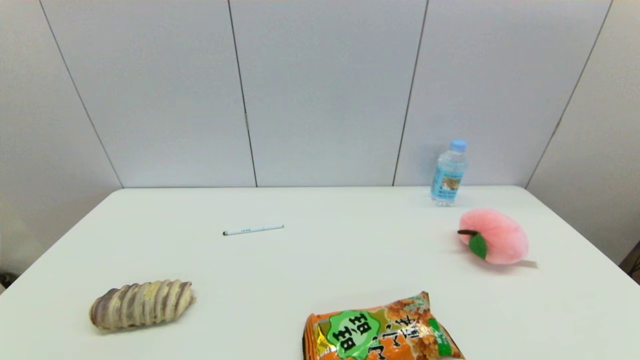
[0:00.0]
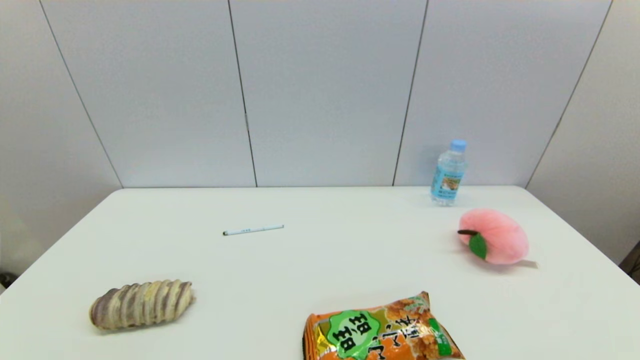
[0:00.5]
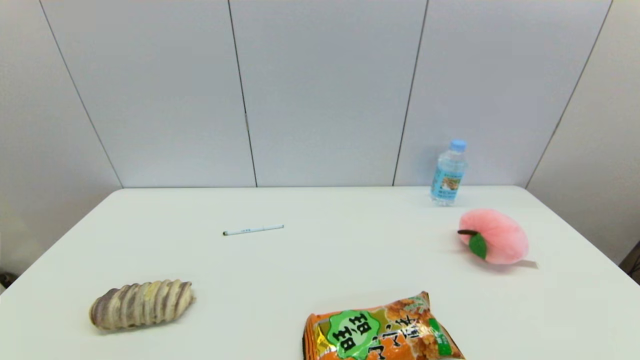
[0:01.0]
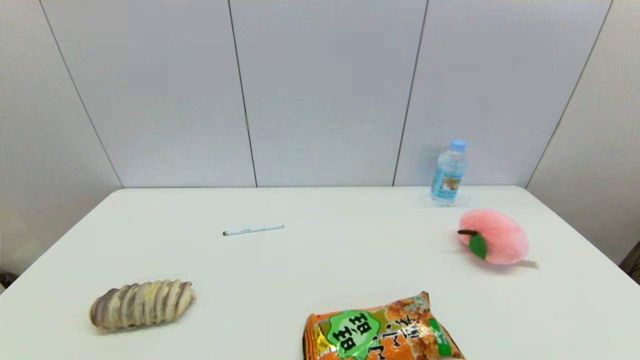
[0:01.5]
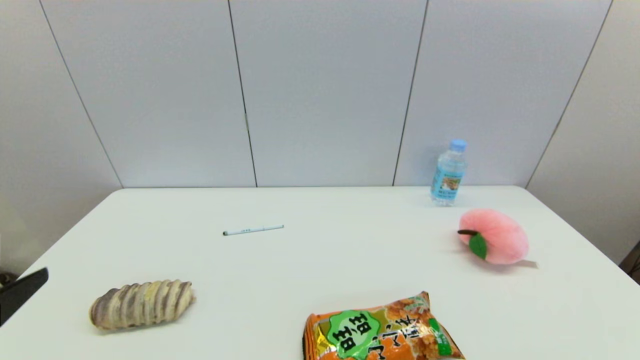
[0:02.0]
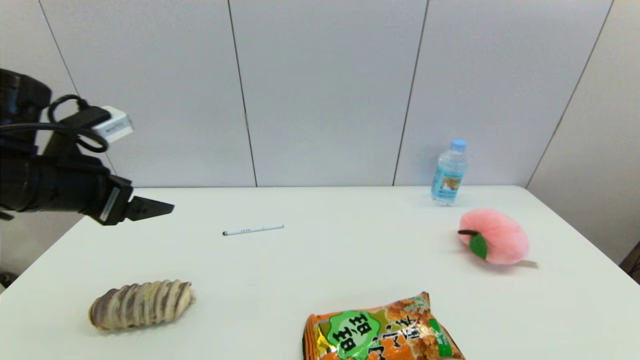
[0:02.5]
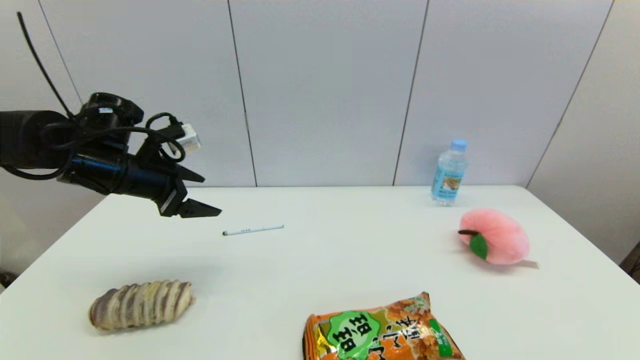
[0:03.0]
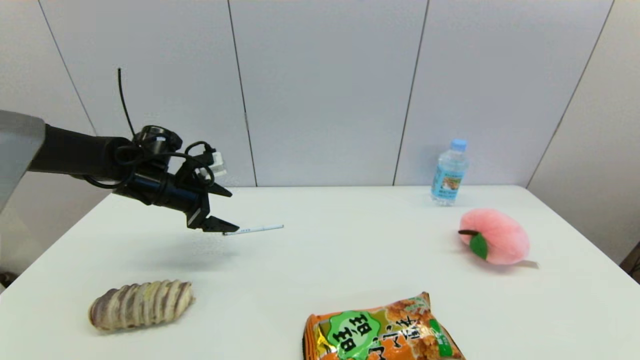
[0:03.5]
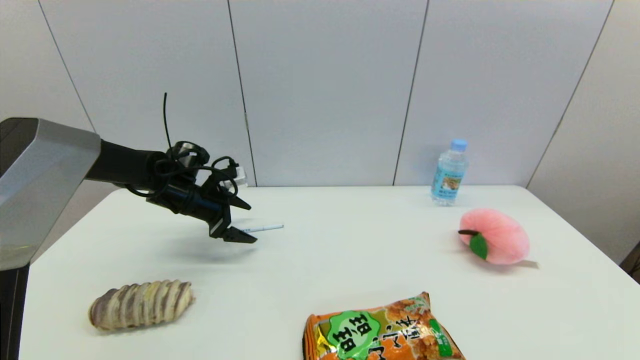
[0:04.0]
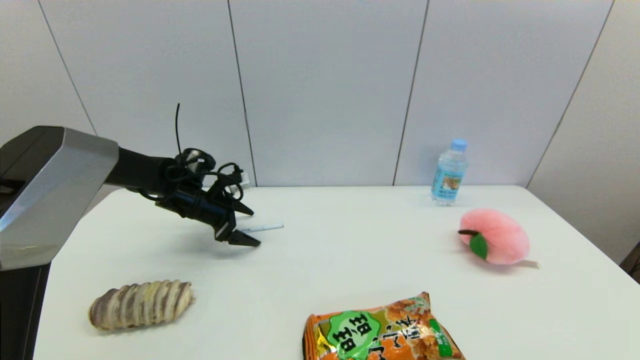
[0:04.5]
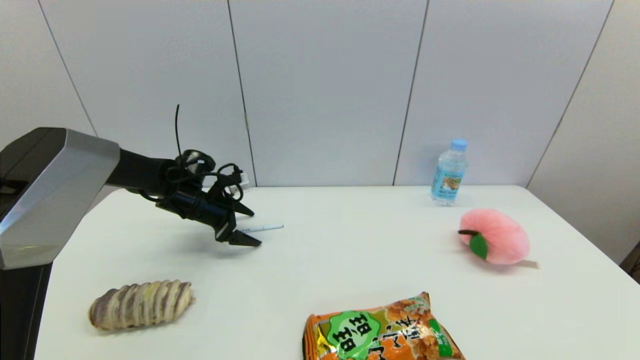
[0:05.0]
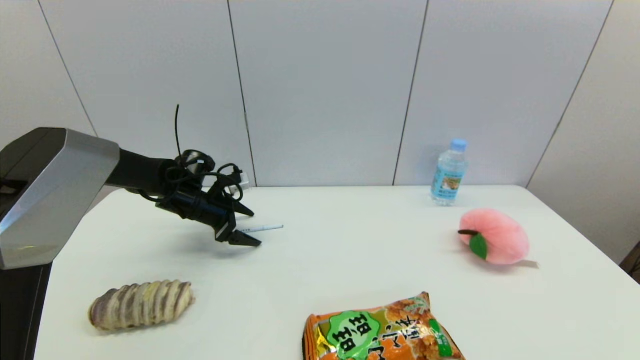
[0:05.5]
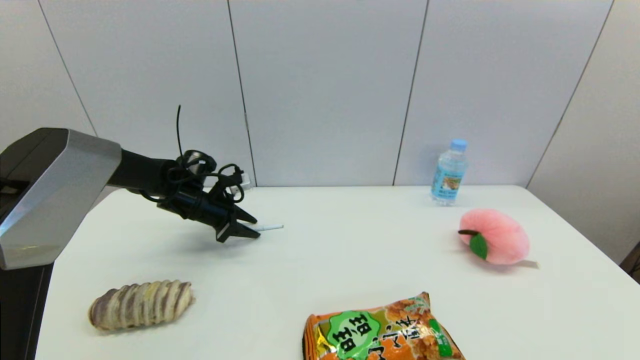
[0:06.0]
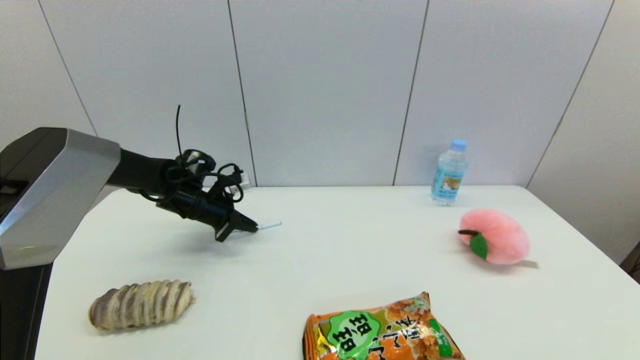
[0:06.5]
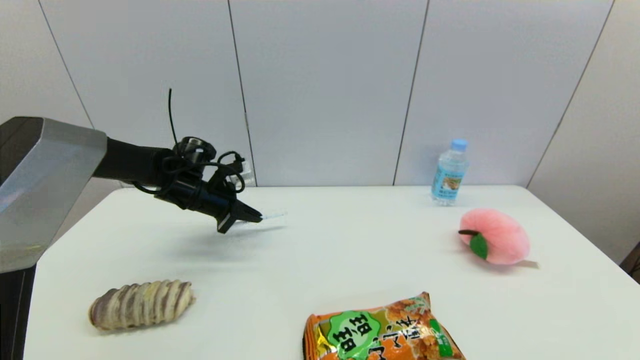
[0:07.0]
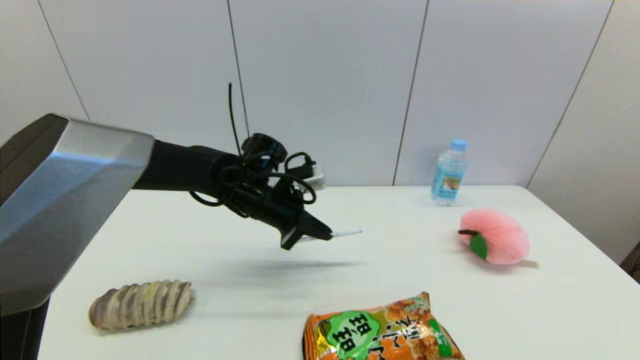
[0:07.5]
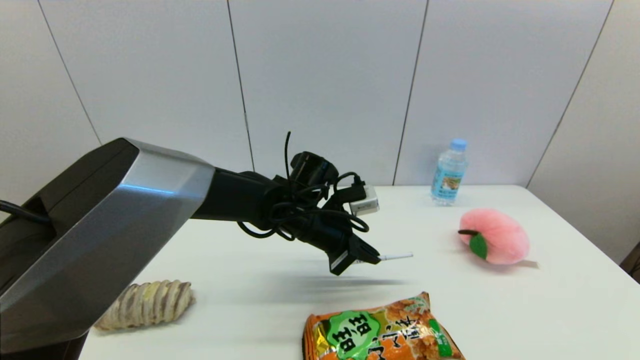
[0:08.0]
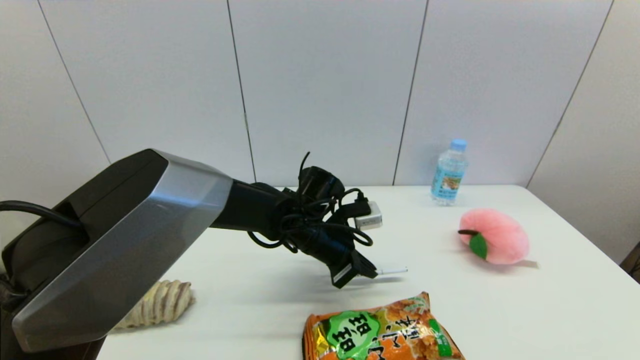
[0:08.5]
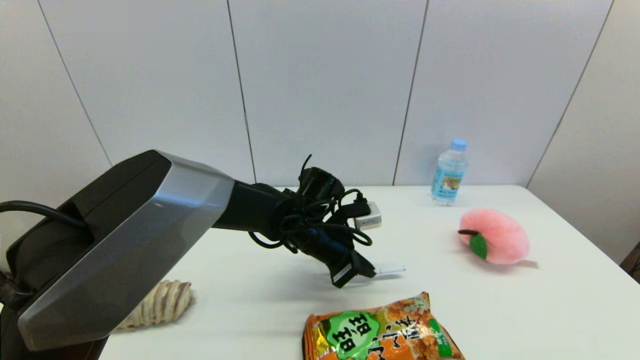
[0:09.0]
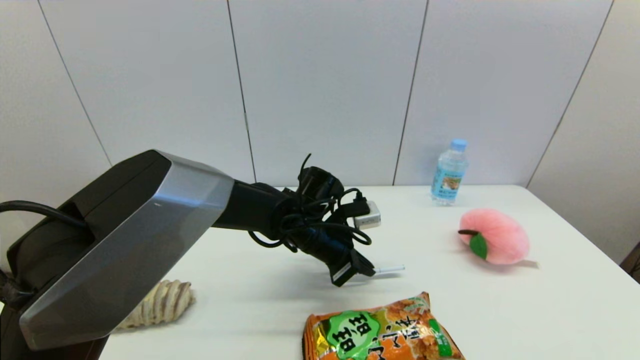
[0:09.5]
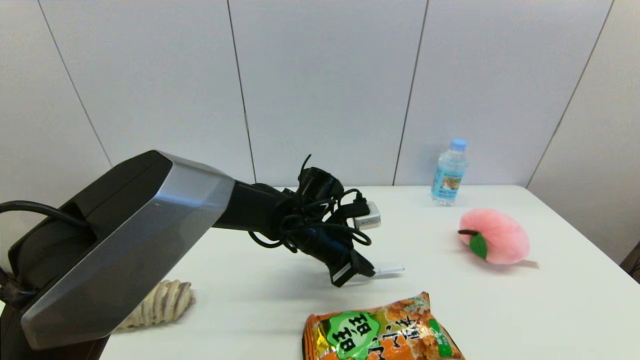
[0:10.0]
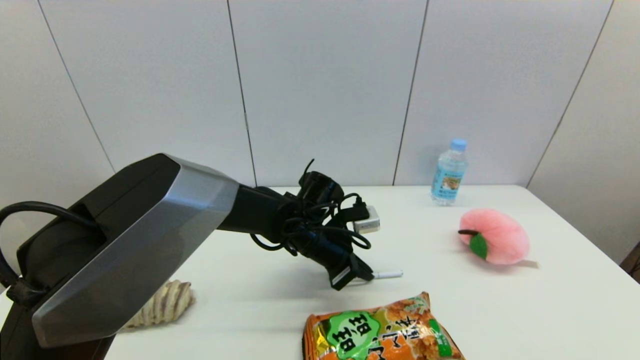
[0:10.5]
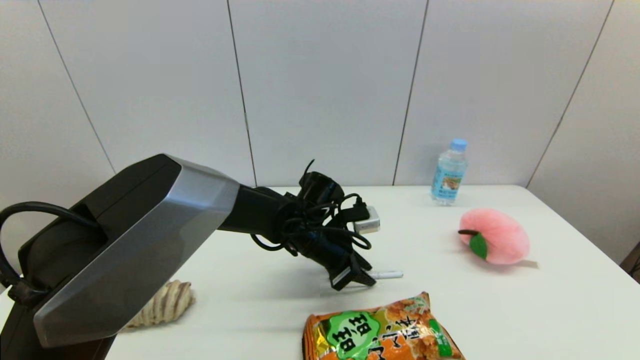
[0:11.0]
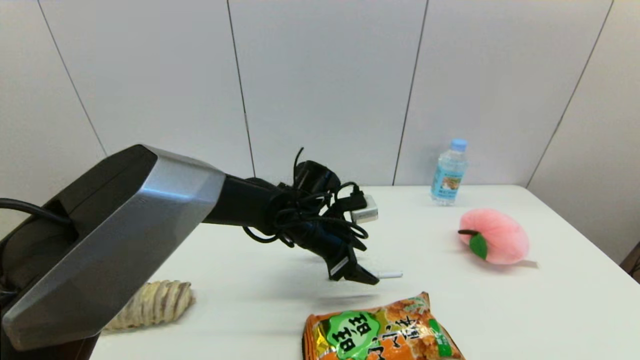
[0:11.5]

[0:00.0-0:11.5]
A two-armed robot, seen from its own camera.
Task of the whole recording: put the pen in the designated position.
Step, 0:02.0 to 0:06.0: Grasp the sign pen with left gripper.
Step, 0:06.5 to 0:11.0: Place the sign pen on the table with left gripper.
0:02.0 to 0:04.0: The left gripper travels forward by roughly 35 cm.
0:04.0 to 0:06.0: The left gripper closes up.
0:06.0 to 0:07.5: The left gripper moves to the right and backward, roughly 15 cm, and closes up.
0:07.5 to 0:09.5: The left gripper is displaced to the right by about 10 cm.
0:09.5 to 0:11.5: The left gripper opens up.

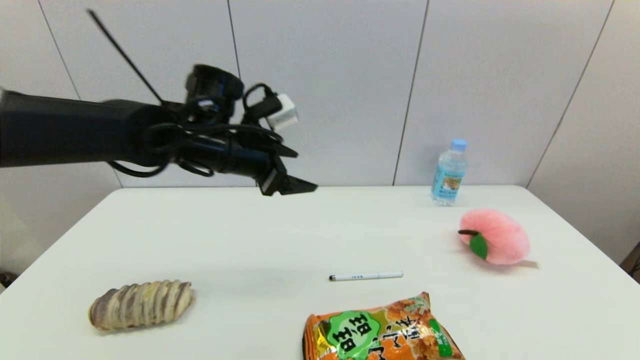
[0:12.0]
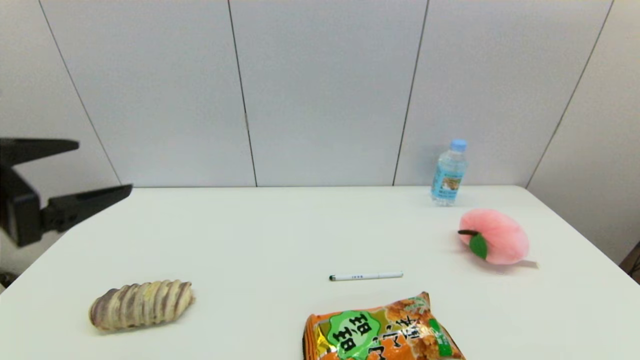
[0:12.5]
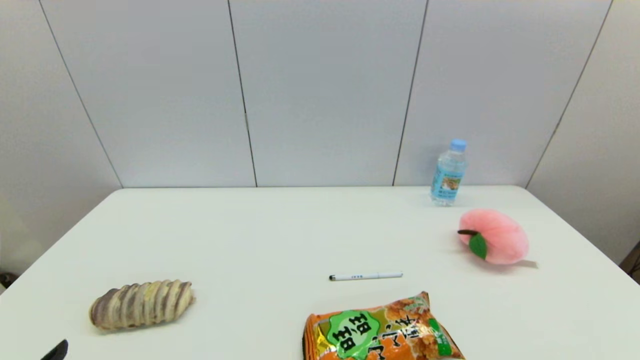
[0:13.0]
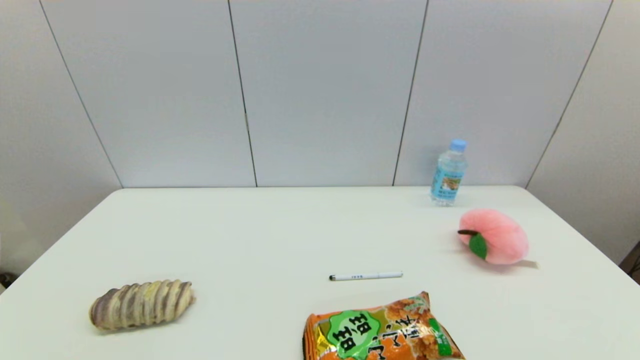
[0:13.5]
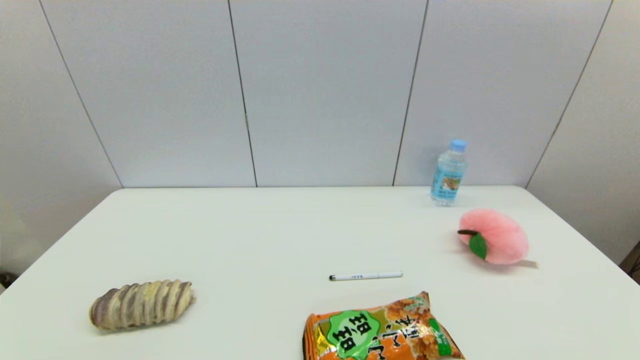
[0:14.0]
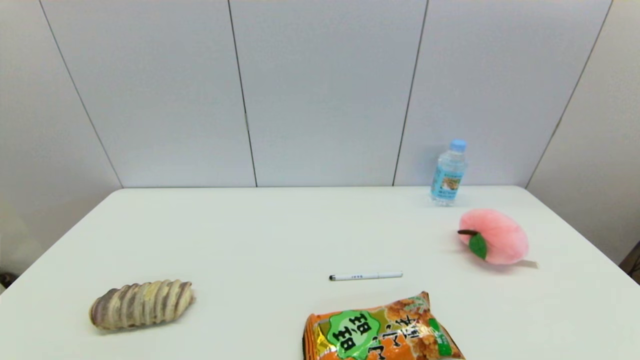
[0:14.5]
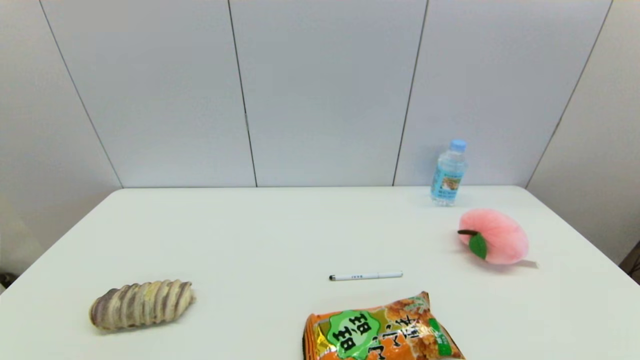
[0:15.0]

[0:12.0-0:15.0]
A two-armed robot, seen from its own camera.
Task of the whole recording: put the pen in the designated position.
0:12.0 to 0:13.5: The left gripper shifts some 40 cm backward, downward and to the left.
0:13.5 to 0:15.0: Both grippers stay put.
